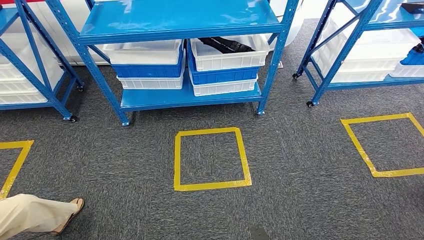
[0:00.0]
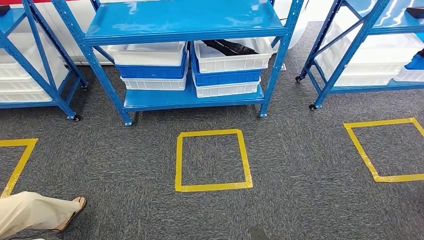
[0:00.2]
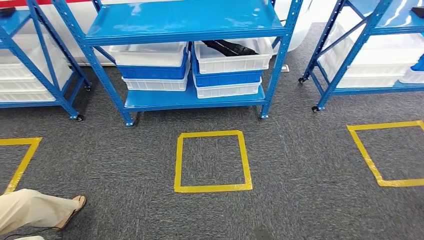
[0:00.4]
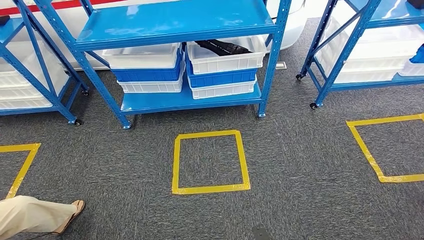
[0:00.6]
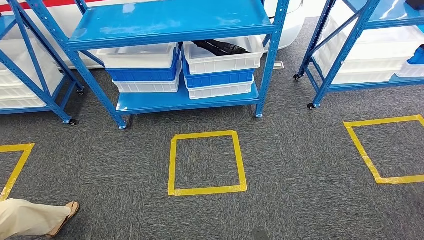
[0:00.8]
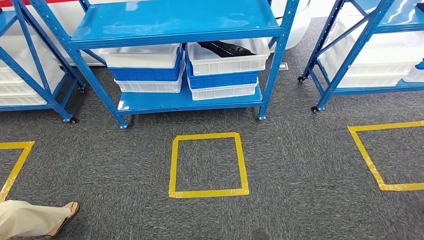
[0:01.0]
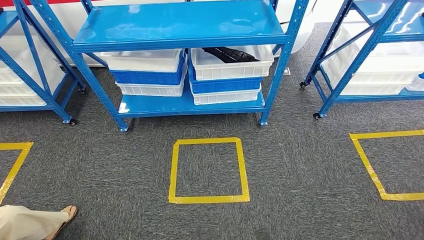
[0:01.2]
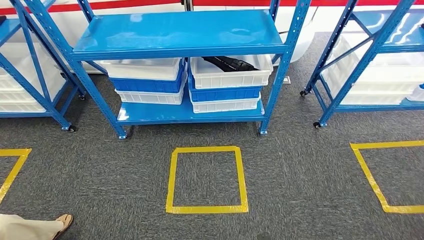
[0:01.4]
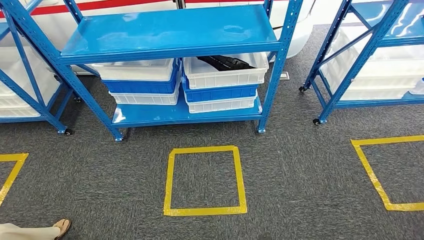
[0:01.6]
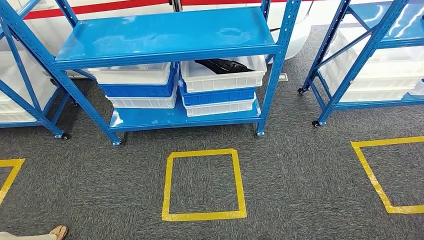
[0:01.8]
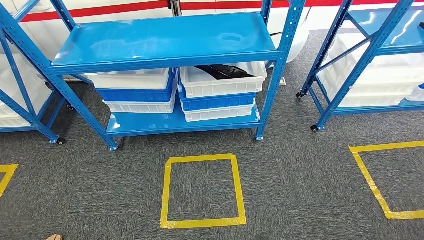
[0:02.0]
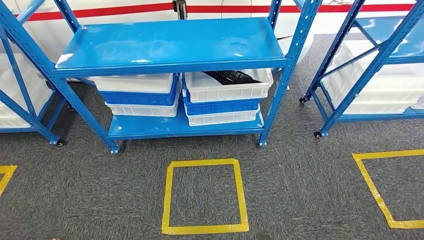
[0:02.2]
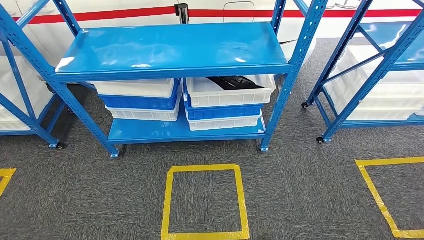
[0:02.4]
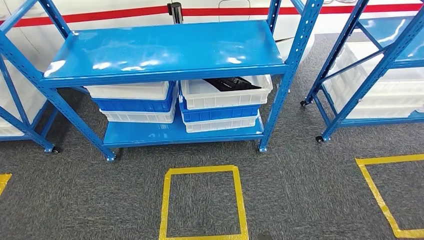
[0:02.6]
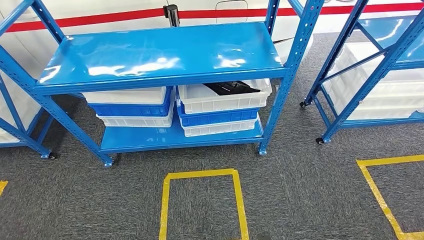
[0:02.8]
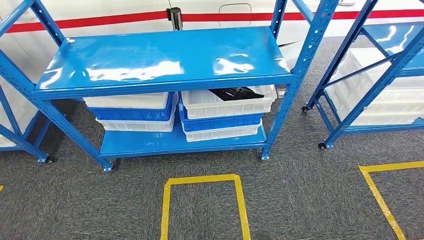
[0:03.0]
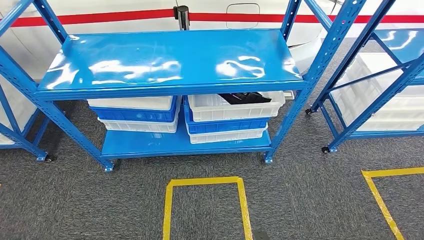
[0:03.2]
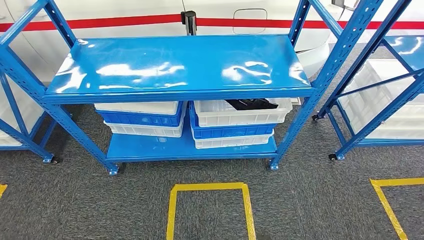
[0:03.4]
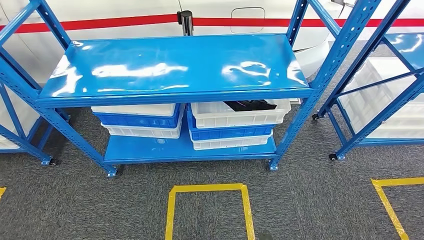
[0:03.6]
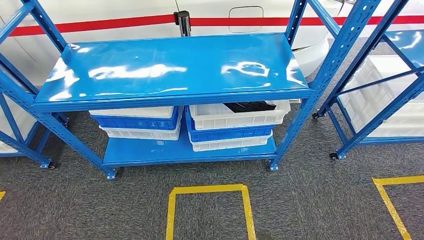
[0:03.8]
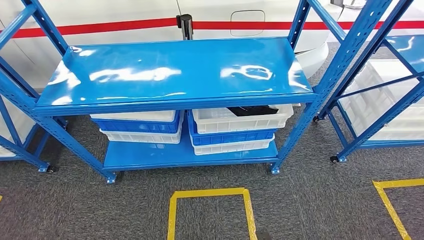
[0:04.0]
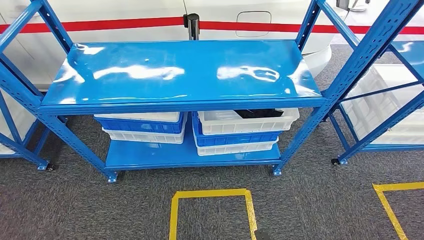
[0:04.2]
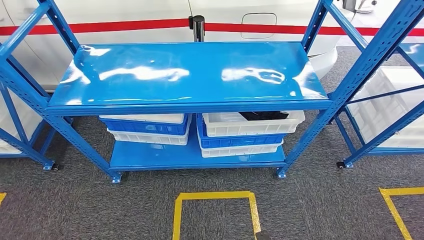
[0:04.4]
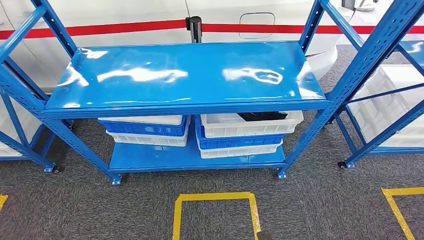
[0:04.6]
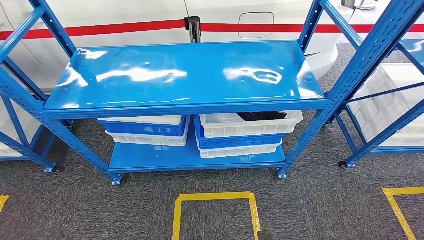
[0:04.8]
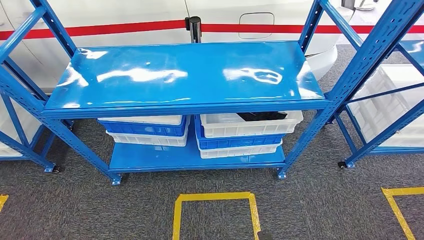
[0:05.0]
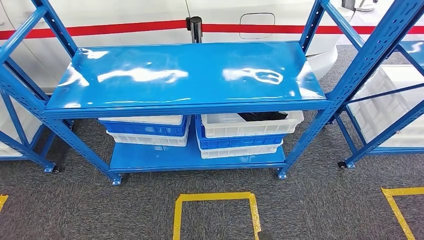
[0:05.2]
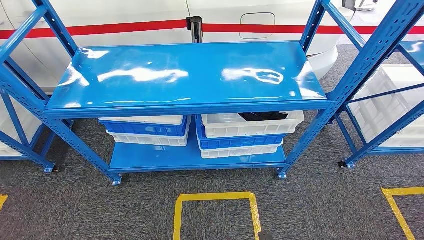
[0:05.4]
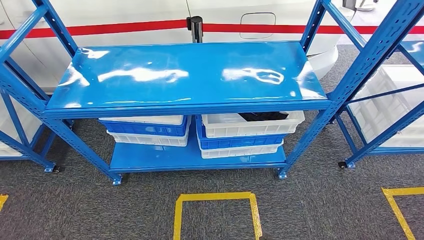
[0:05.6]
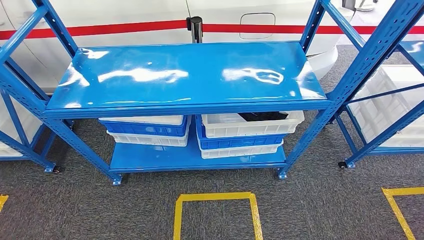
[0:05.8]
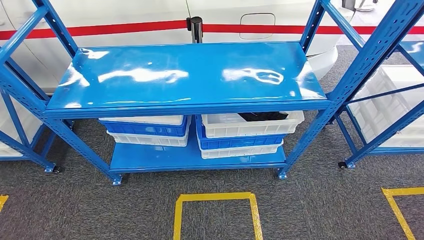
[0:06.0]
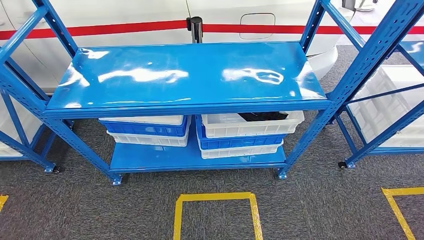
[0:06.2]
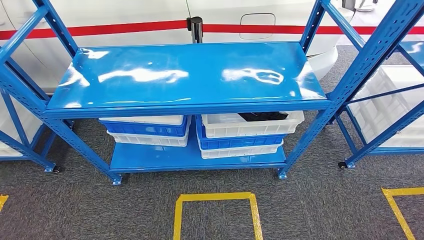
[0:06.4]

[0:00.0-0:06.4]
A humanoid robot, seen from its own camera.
Step, 0:00.0 to 0:06.4: Move to the initial position of the shelf.
0:04.8 to 0:06.4: The right hand shifts roughly 10 cm backward; the left hand shifts by approximately 5 cm.
